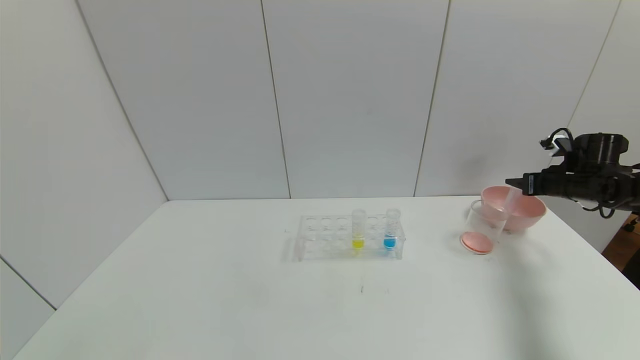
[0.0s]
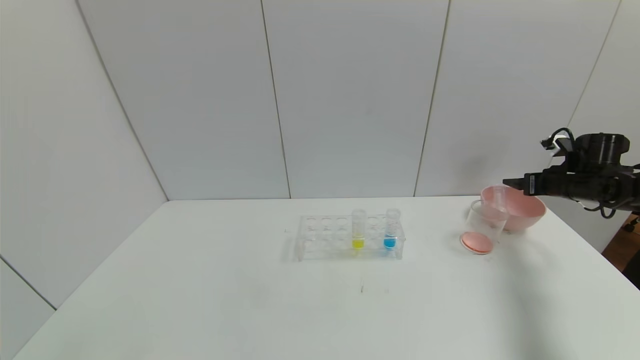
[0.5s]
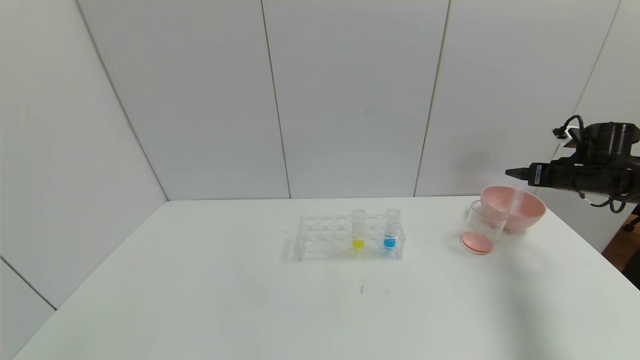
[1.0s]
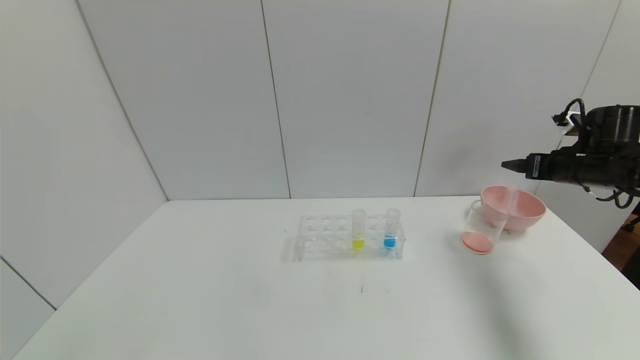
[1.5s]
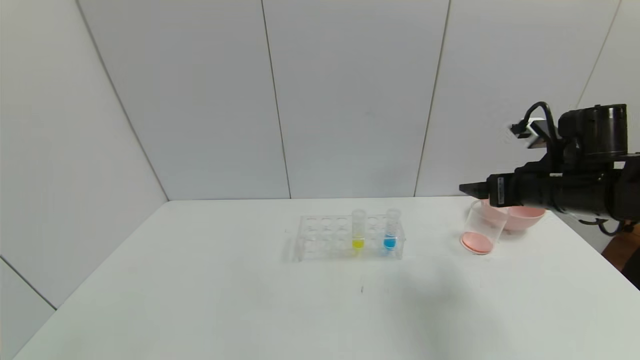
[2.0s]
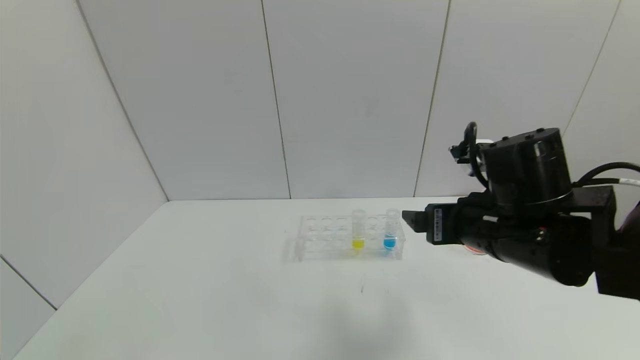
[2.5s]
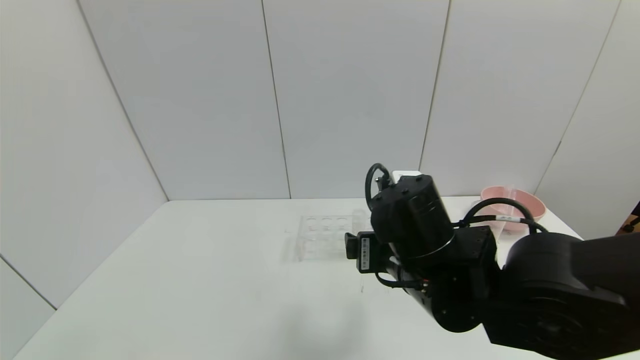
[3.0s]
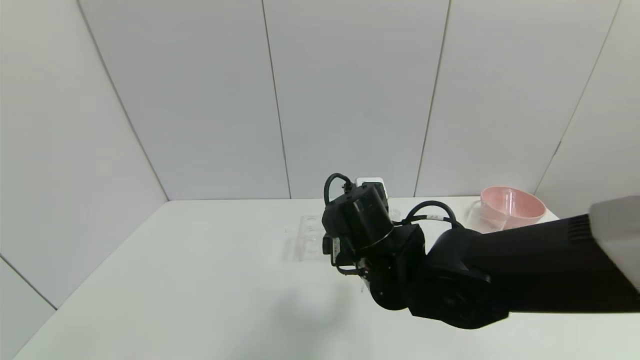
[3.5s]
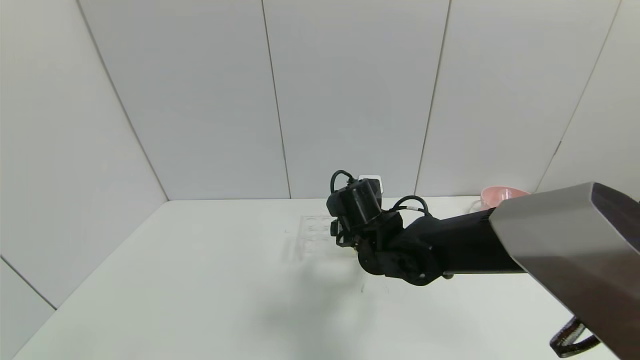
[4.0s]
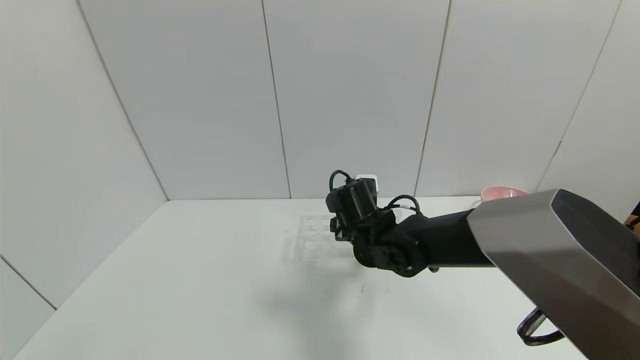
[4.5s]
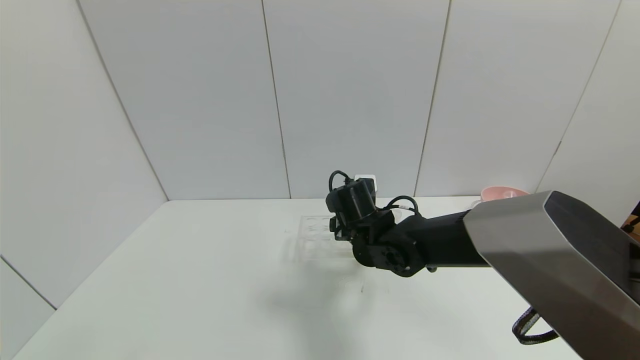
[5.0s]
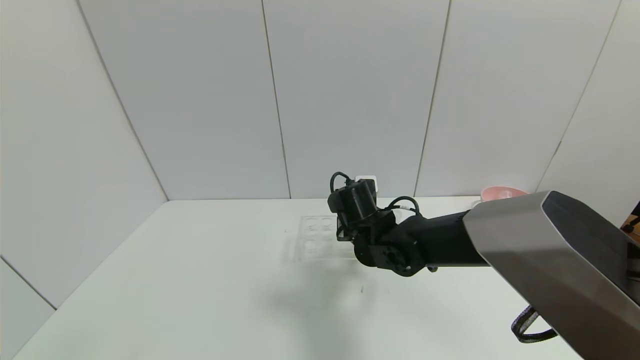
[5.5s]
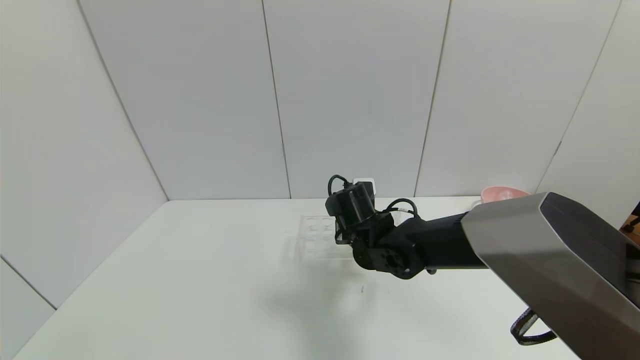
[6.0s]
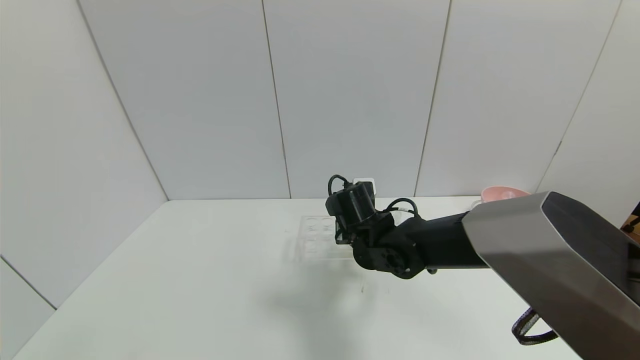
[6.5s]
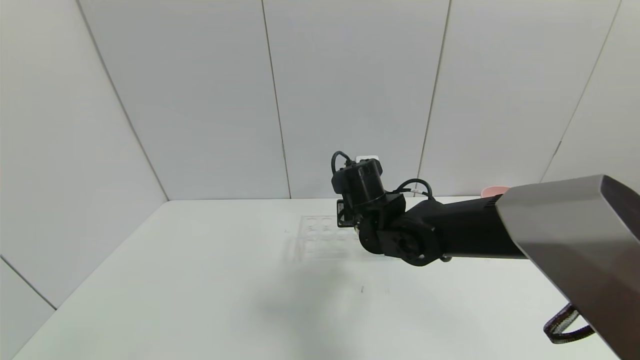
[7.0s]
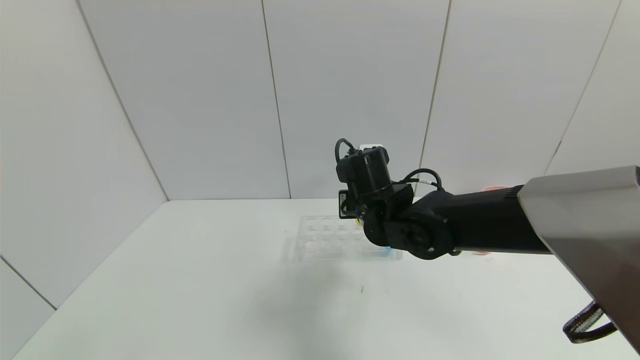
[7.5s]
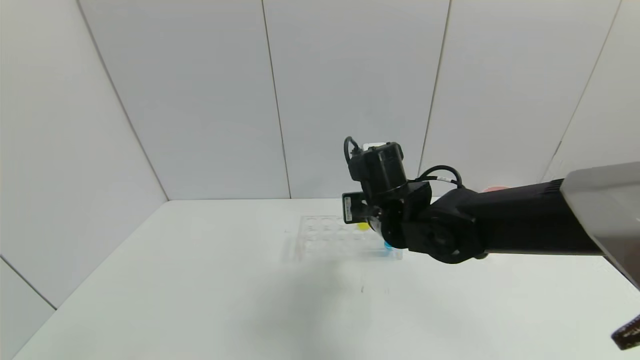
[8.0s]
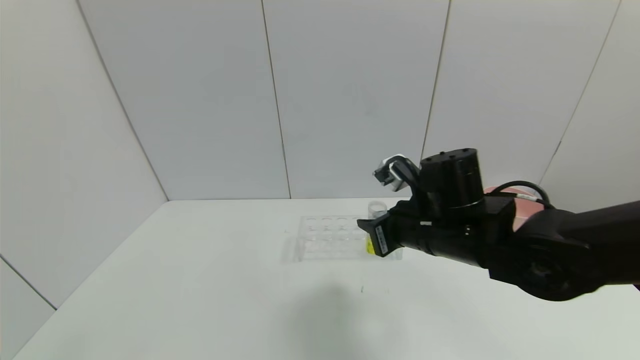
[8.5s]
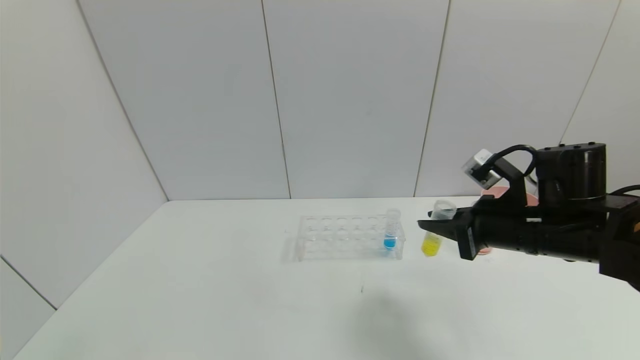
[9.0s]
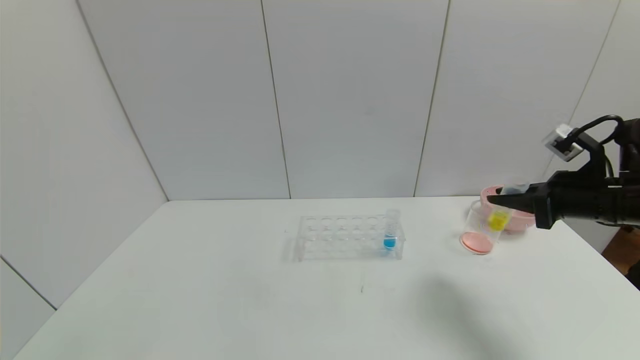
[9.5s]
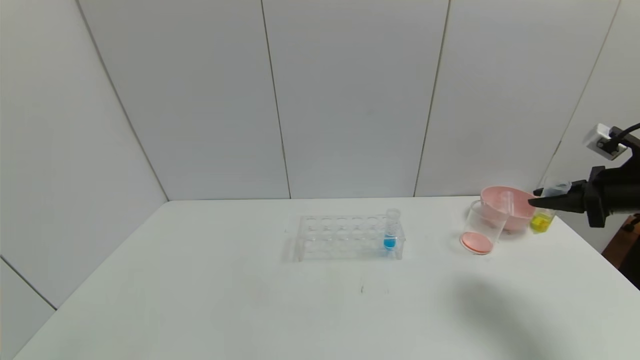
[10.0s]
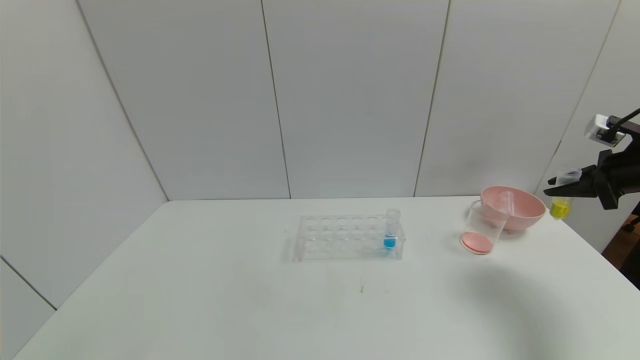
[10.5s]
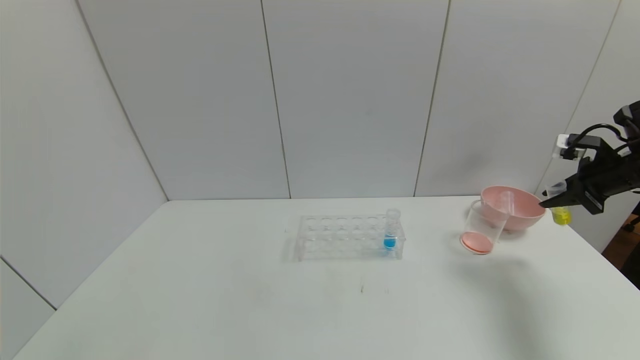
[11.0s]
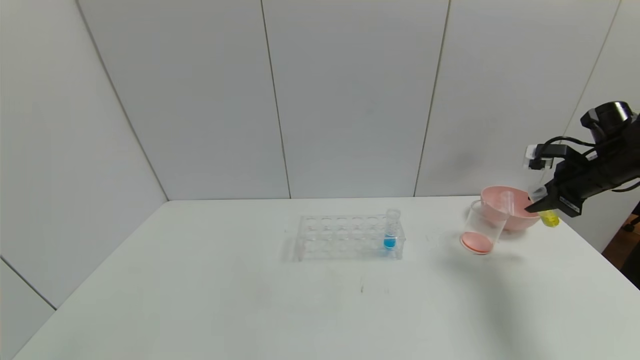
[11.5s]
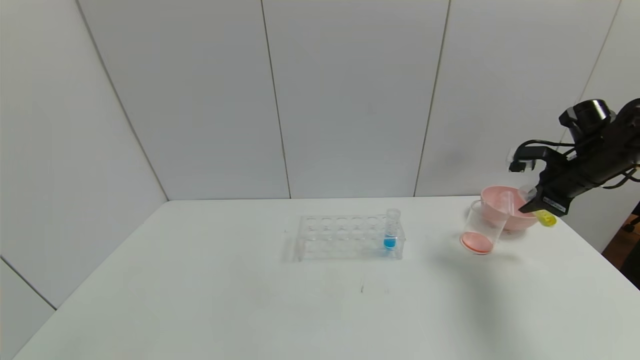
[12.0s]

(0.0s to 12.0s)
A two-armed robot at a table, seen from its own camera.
Task of the whole recording: pick up the test tube with yellow pigment and the test tube with red pigment by grippers and pour them into the beaker.
Step, 1.0s - 5.5s: Grasp the yellow reagent with the right gripper.
0.0s - 2.0s: The right gripper is displaced to the left and backward by approximately 25 cm, and opens its fingers.
2.0s - 4.0s: The right gripper shifts roughly 25 cm to the left and downward.
4.0s - 6.0s: The right gripper closes.
6.0s - 8.0s: The right gripper travels upward by approximately 10 cm.
8.0s - 10.0s: The right gripper travels to the right by some 35 cm.
10.0s - 12.0s: The right gripper is displaced forward by some 10 cm.

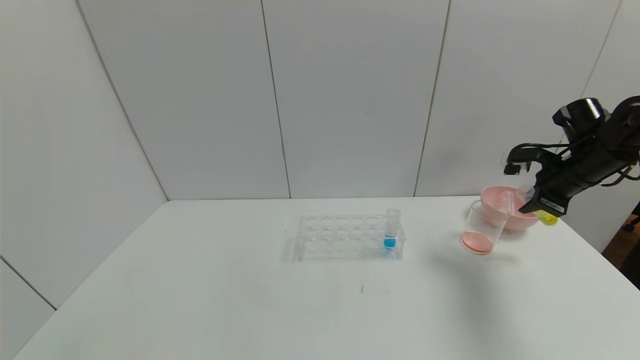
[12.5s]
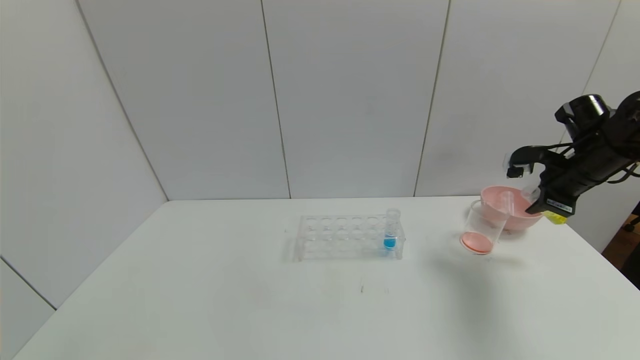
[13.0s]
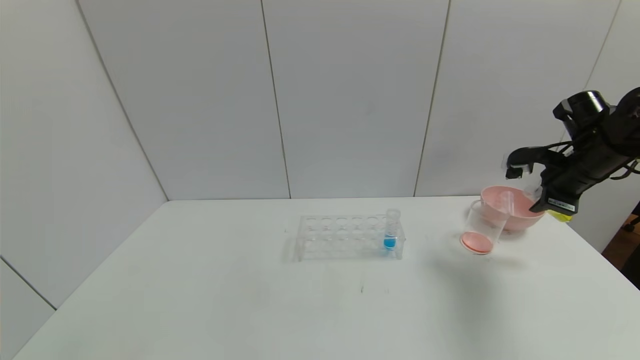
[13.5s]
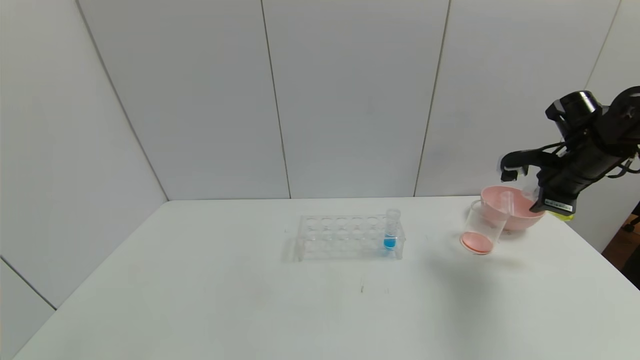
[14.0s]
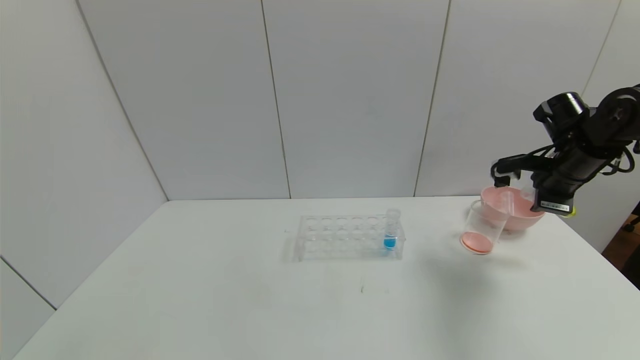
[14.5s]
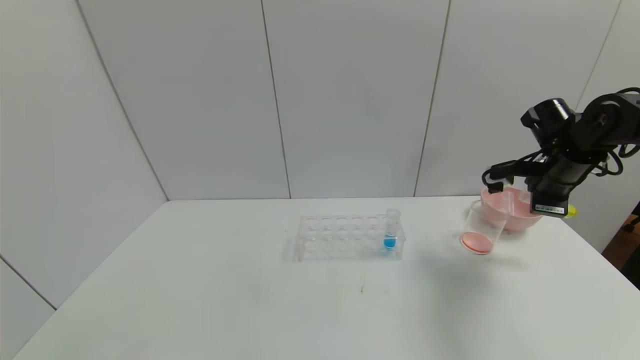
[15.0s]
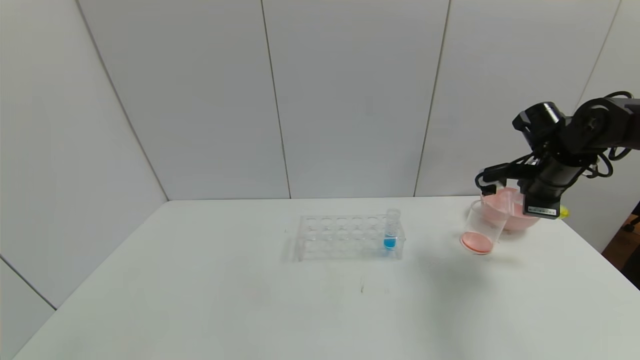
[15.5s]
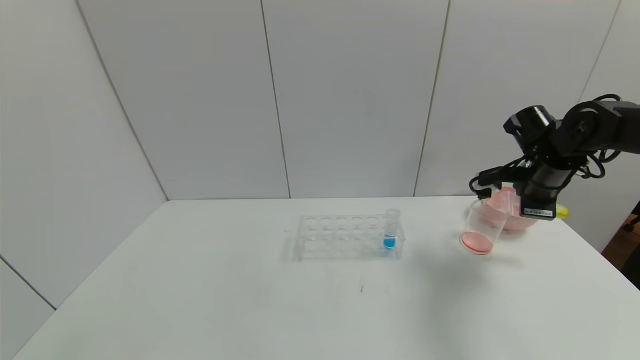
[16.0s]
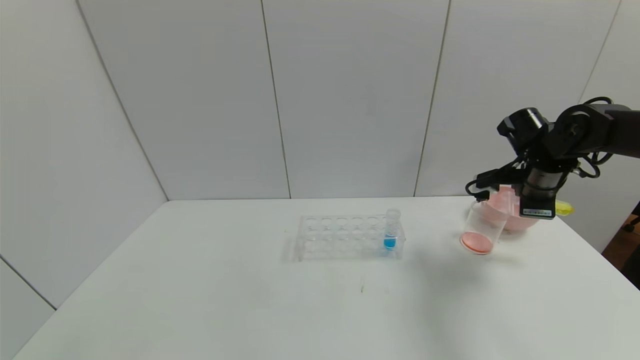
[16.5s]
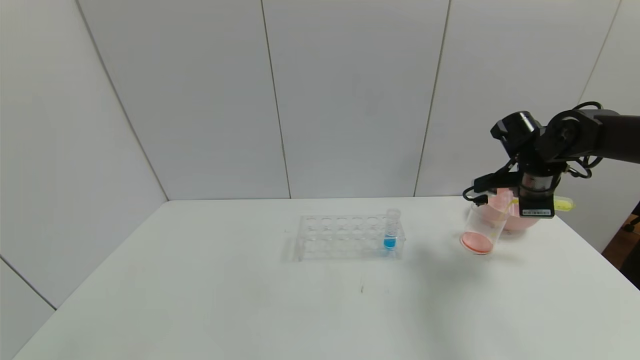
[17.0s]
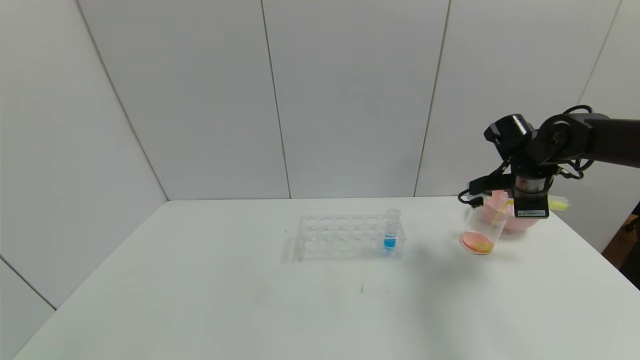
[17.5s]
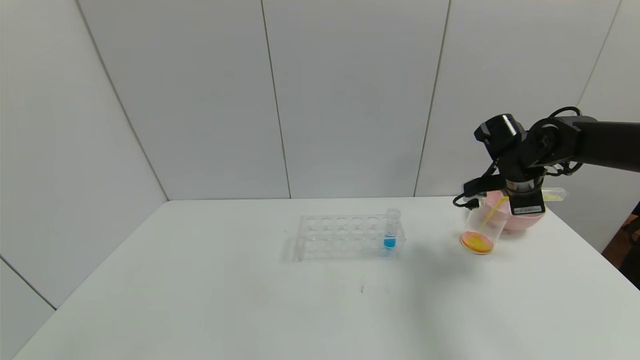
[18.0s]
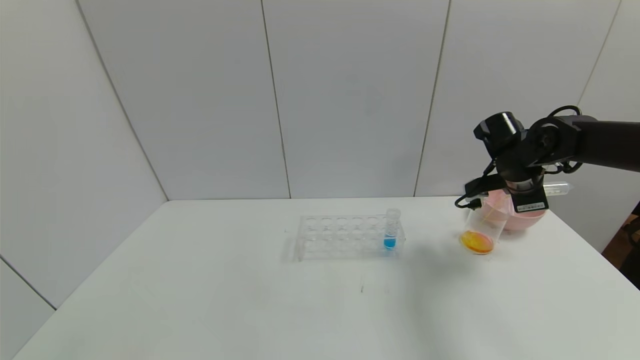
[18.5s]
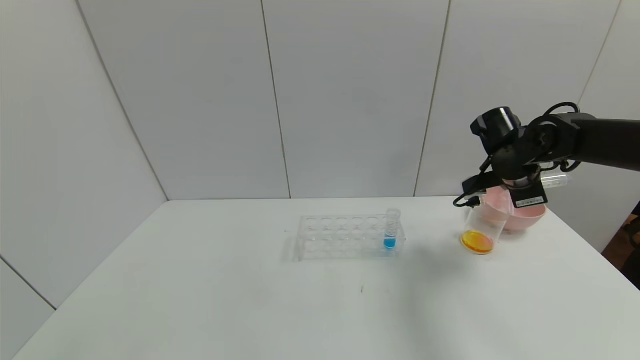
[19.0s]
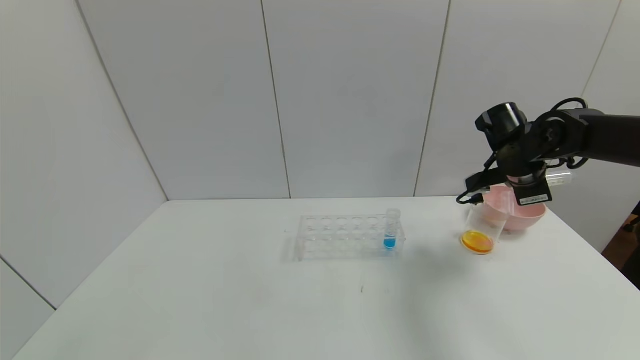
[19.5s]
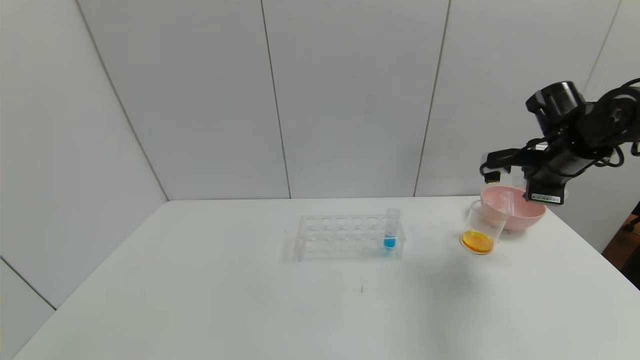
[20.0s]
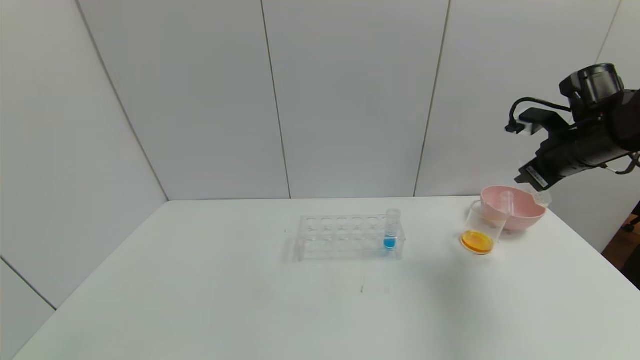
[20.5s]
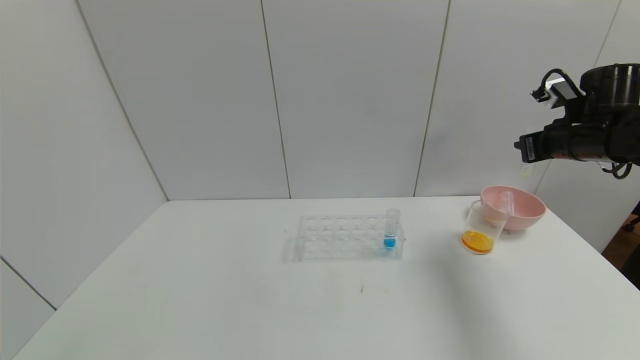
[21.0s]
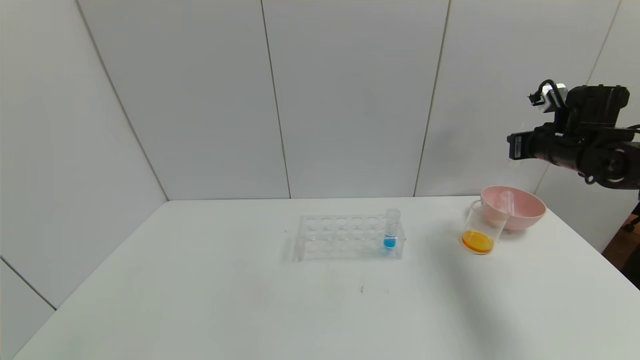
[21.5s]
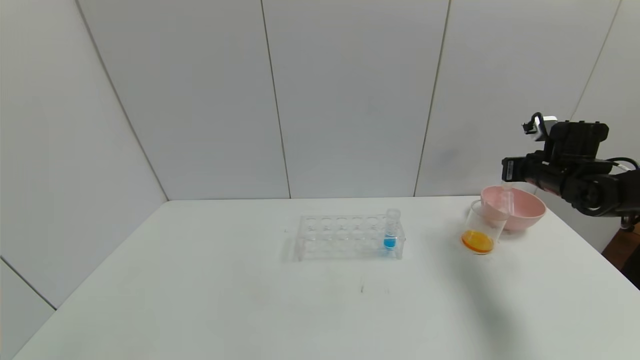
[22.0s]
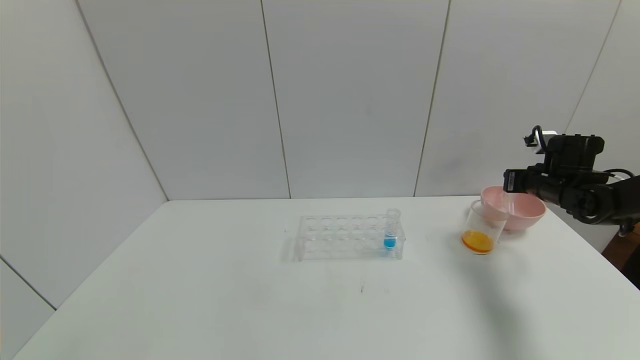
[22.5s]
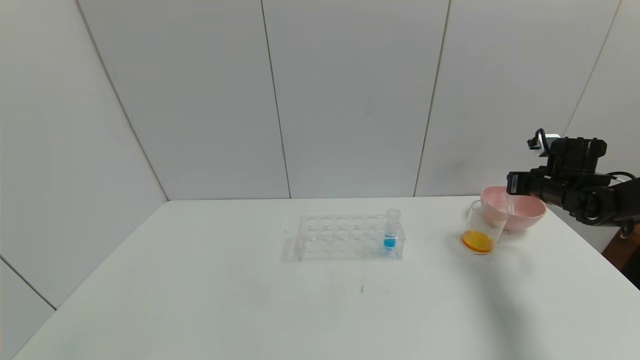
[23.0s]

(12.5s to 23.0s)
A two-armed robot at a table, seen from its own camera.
Task of the whole recording: pick up the test tube with yellow pigment and the test tube with red pigment by grippers and pour them into the beaker.
Step, 12.5s - 19.0s: Pour the yellow reagent into the graduated cylinder with the right gripper.
12.5s - 14.5s: The grippers make only small movements.
14.5s - 16.5s: The grippers move only a little.
19.0s - 21.0s: The right gripper heads to the right and upward, covering about 10 cm.
21.0s - 23.0s: The right gripper shifts about 10 cm downward.
